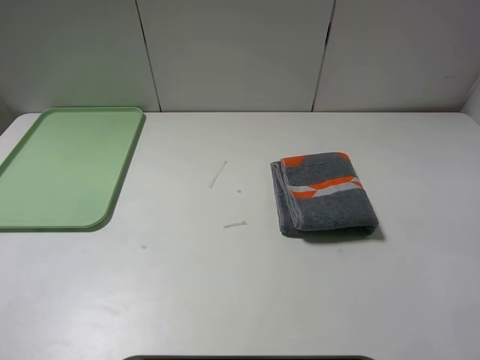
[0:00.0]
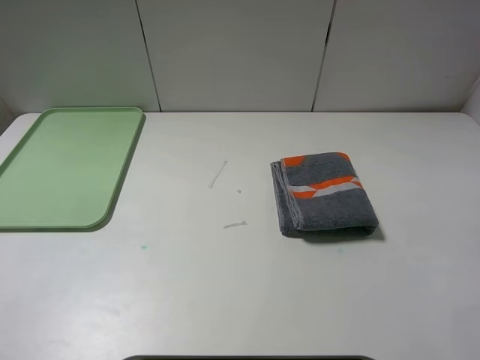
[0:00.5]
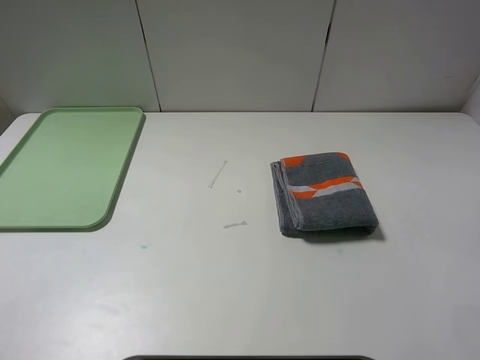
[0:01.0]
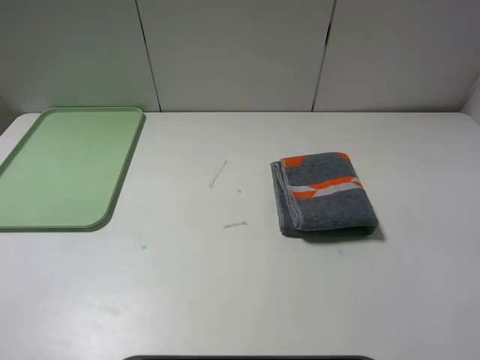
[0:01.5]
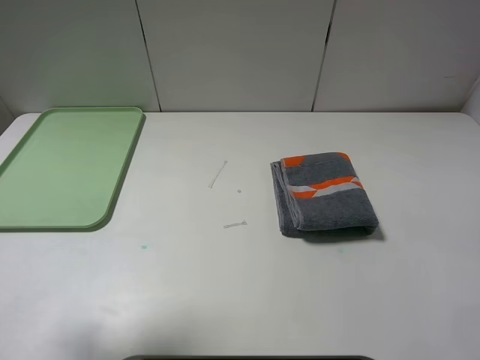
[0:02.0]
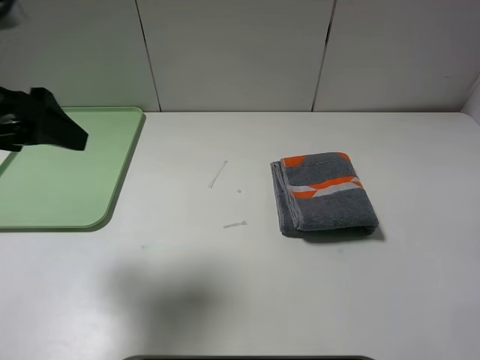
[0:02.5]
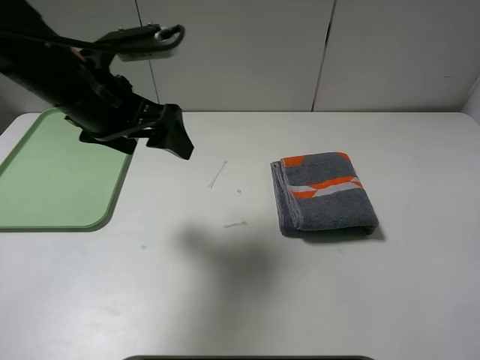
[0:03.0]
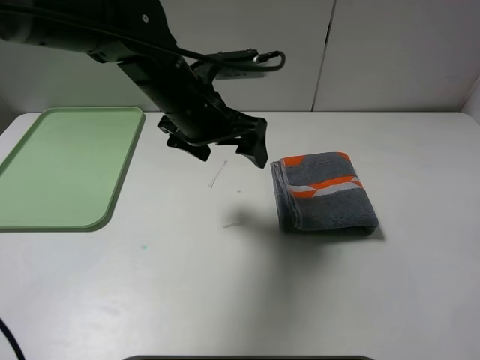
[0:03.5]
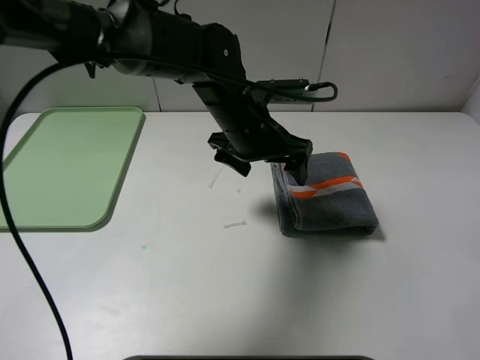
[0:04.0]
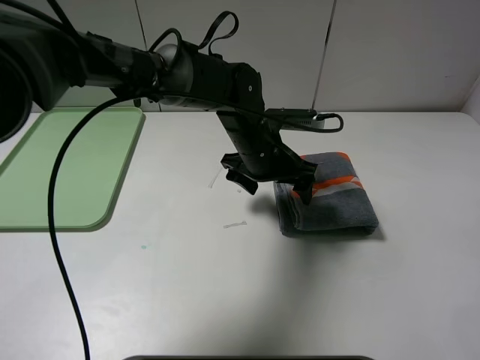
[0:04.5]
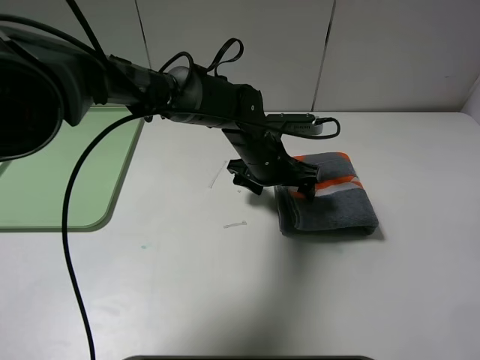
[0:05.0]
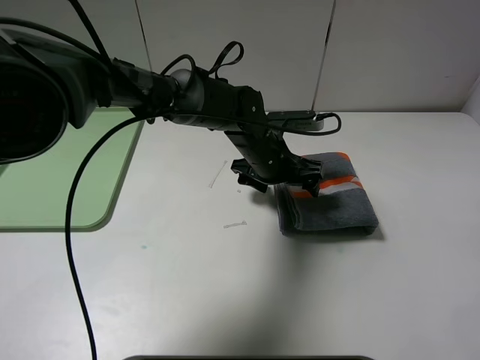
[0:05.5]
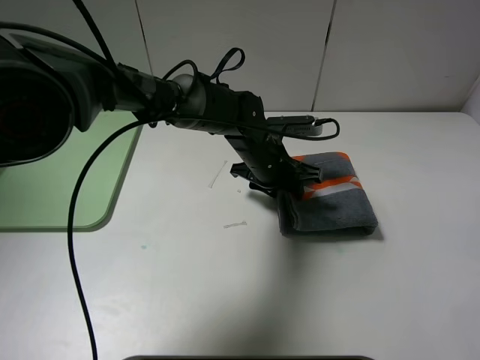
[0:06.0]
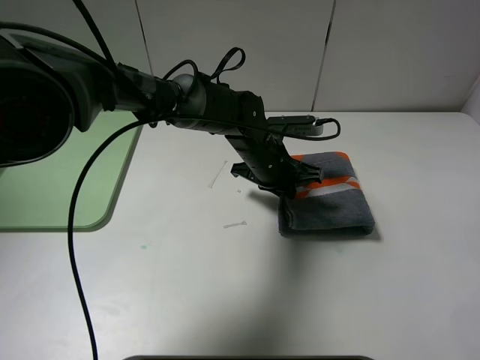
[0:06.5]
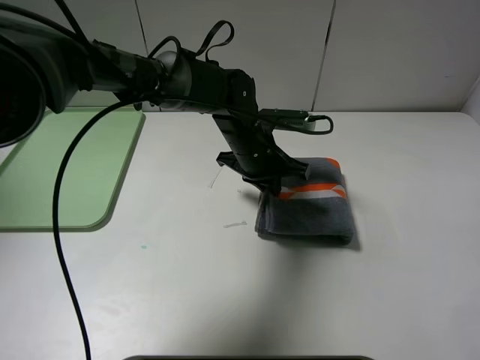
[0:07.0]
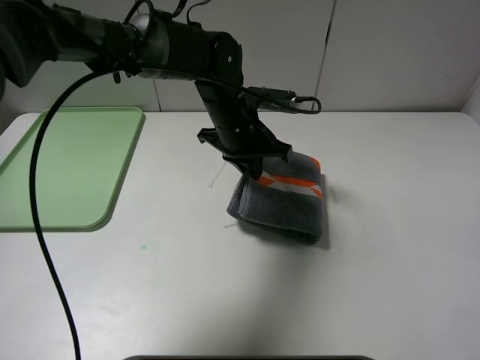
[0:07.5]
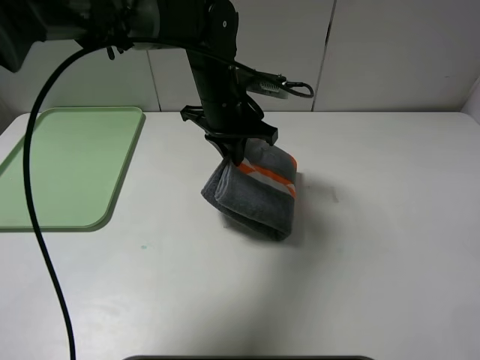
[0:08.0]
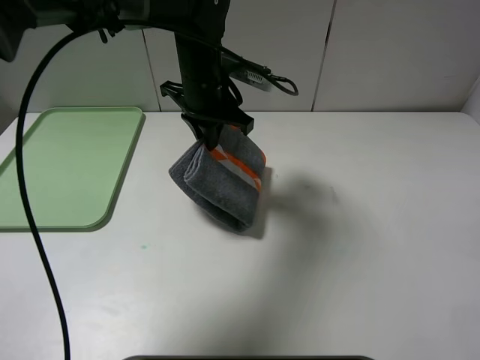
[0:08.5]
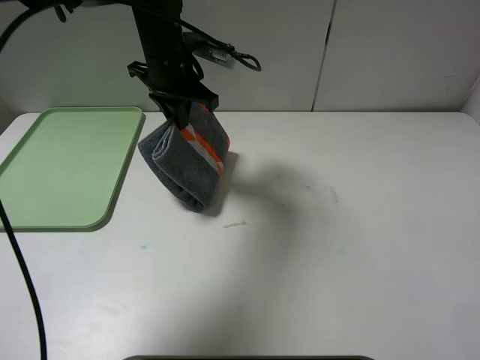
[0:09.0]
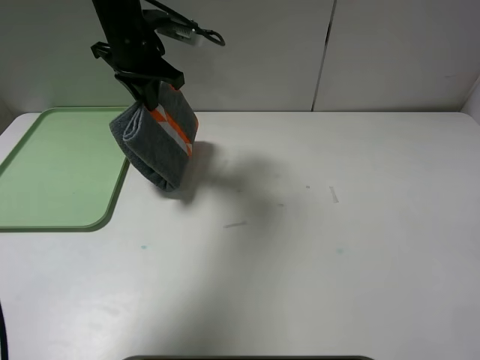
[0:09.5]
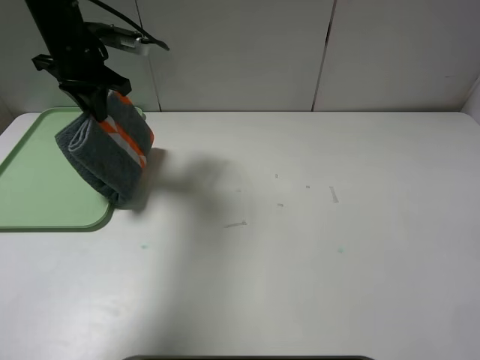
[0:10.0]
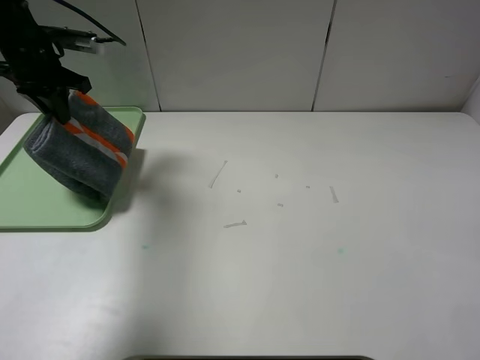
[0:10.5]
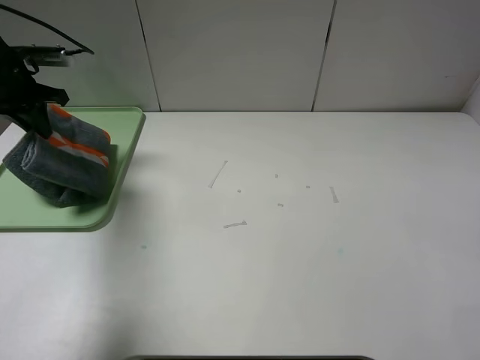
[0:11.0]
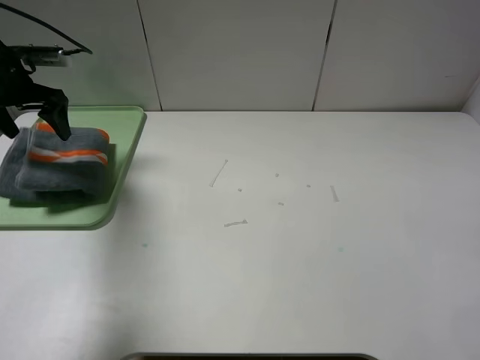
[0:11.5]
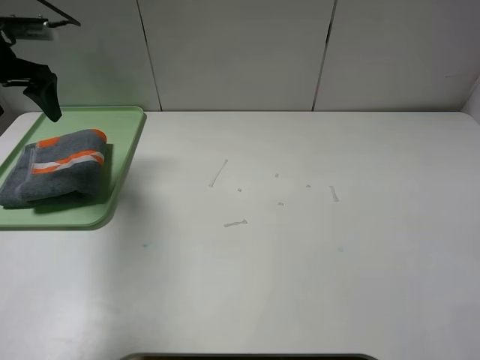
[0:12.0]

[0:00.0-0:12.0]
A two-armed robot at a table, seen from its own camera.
Step, 0:00.0 to 0:11.5: Place the folded grey towel on the tray with the left gripper.
0:00.0 to 0:02.0: The left gripper travels forward and upward by some 15 cm.
0:02.0 to 0:04.0: The left gripper is displaced to the right, forward and downward by approximately 40 cm.
0:04.0 to 0:06.0: The left gripper travels downward by roughly 10 cm, and closes its fingers.
0:06.0 to 0:08.0: The left gripper moves upward and to the left, roughly 10 cm.
0:08.0 to 0:10.0: The left gripper goes about 20 cm to the left.
0:10.0 to 0:12.0: The left gripper shifts approximately 10 cm to the left, and opens up.

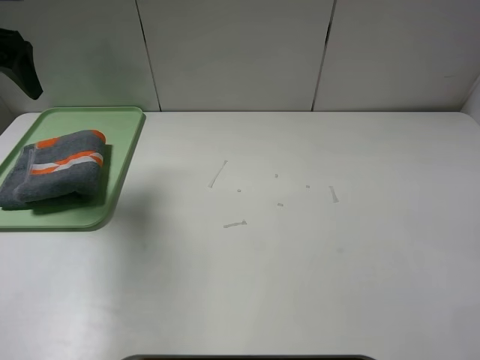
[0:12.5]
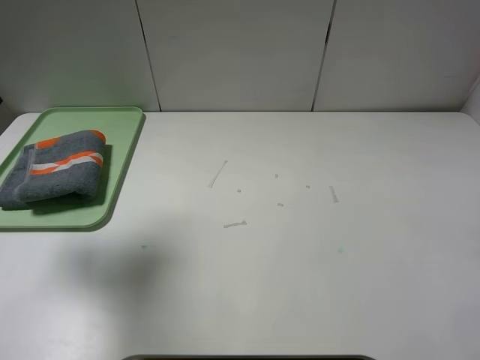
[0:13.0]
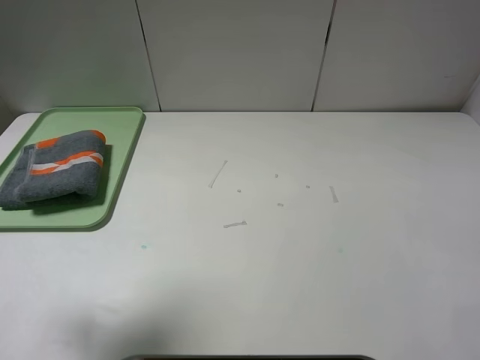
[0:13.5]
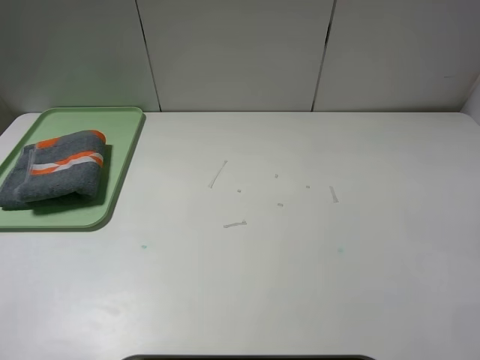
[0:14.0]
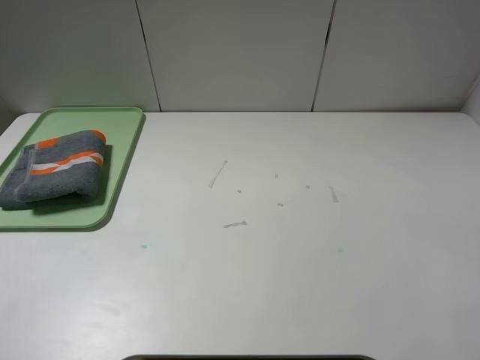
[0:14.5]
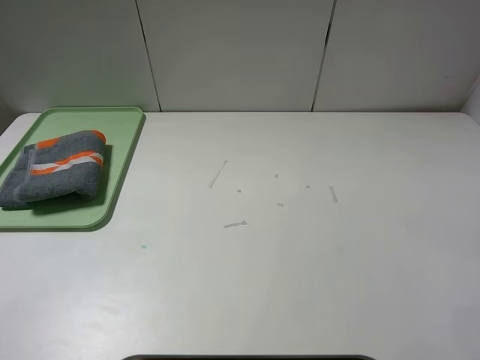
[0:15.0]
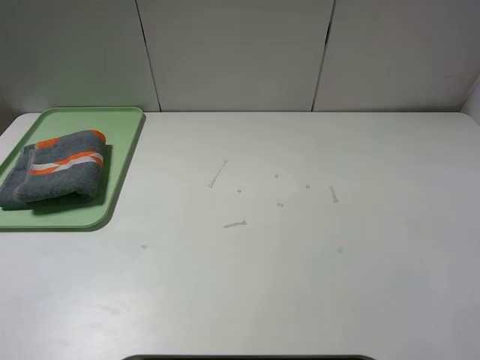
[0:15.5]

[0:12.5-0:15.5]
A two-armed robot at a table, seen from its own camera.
0:12.5 to 0:14.0: The left gripper heads backward, covering roughly 30 cm.
